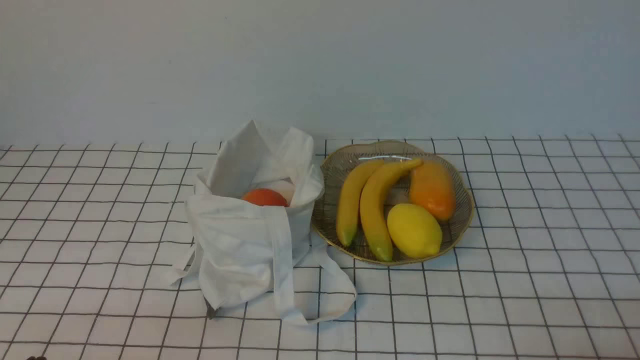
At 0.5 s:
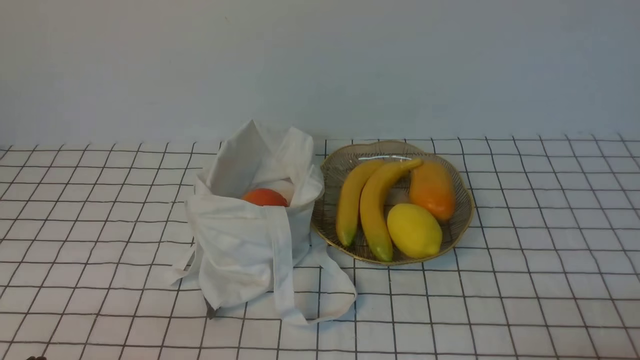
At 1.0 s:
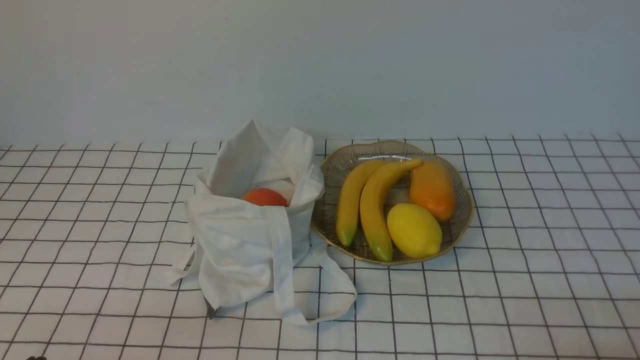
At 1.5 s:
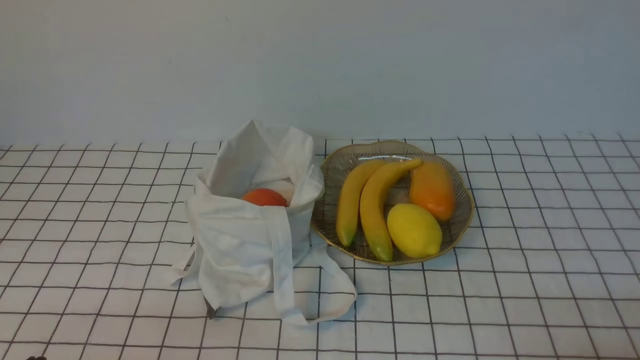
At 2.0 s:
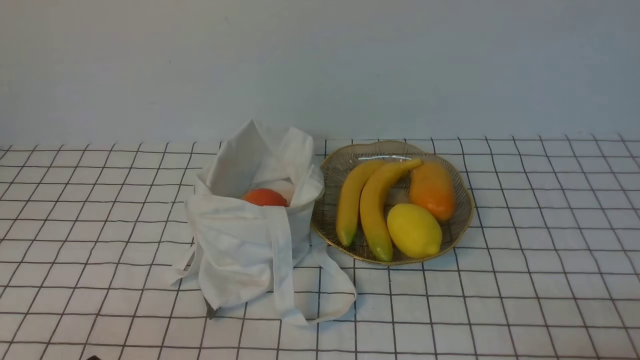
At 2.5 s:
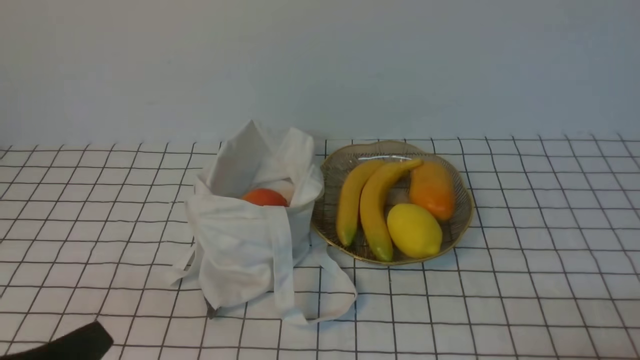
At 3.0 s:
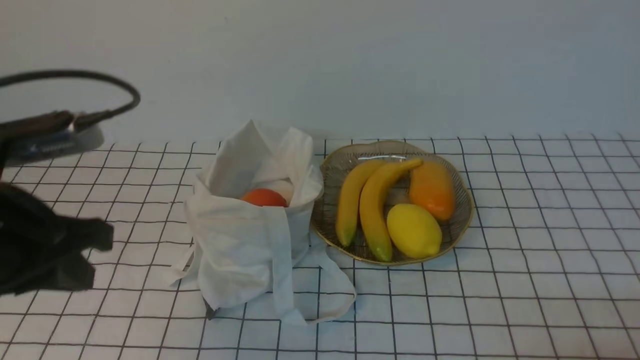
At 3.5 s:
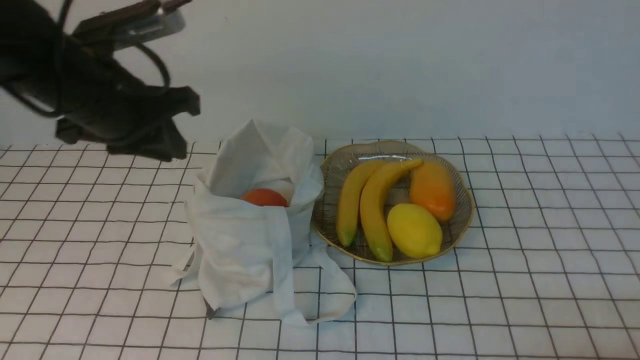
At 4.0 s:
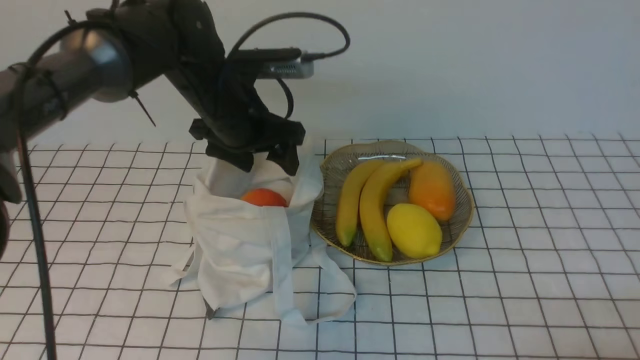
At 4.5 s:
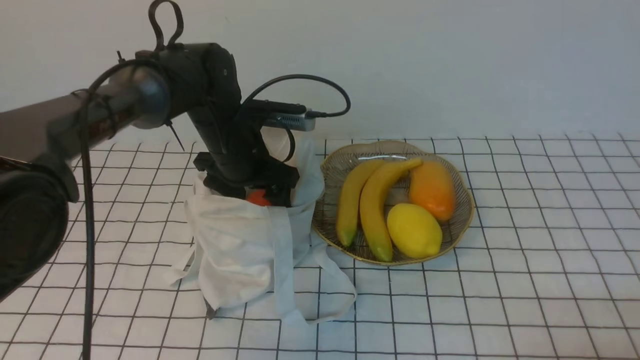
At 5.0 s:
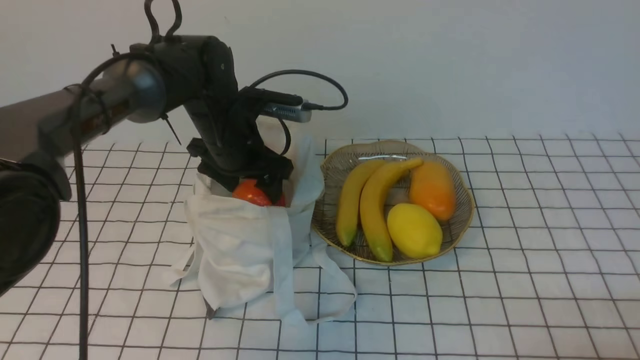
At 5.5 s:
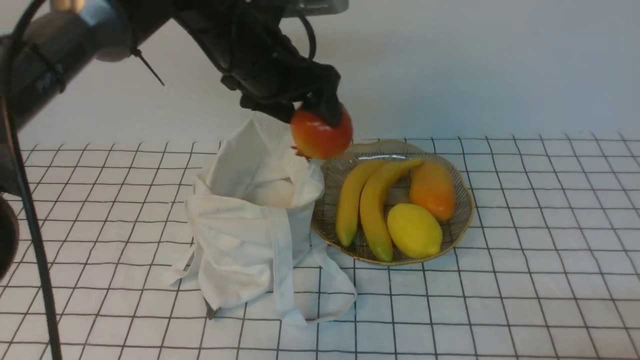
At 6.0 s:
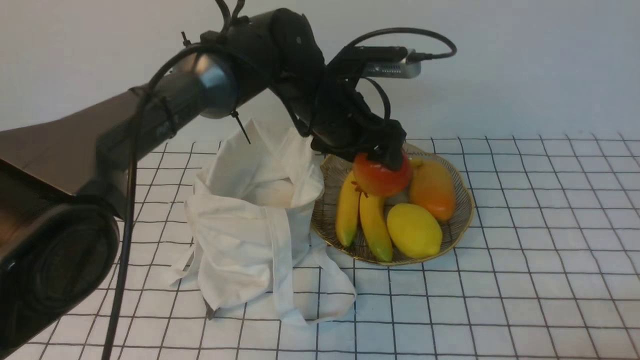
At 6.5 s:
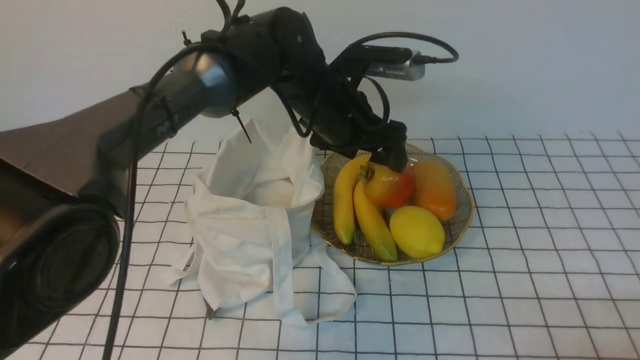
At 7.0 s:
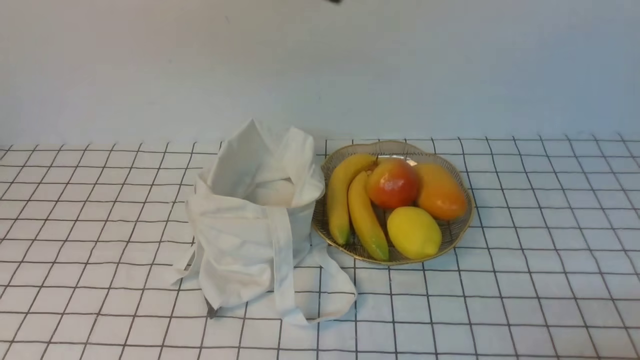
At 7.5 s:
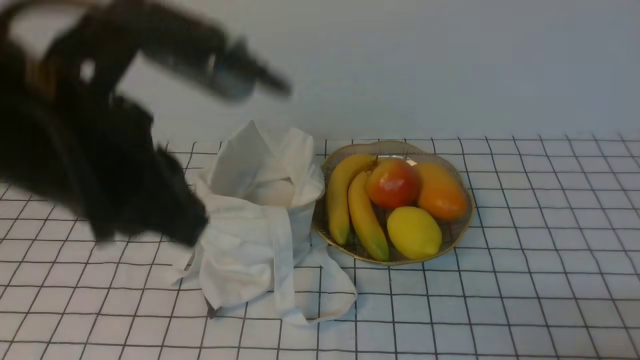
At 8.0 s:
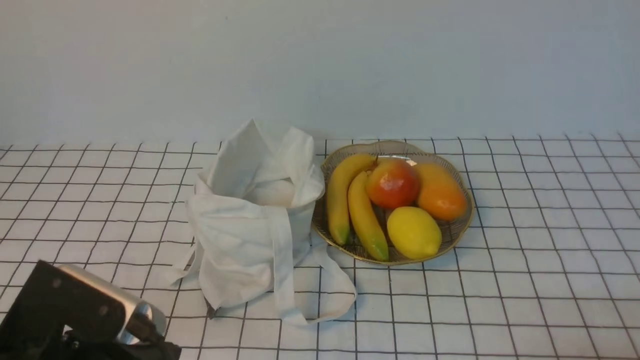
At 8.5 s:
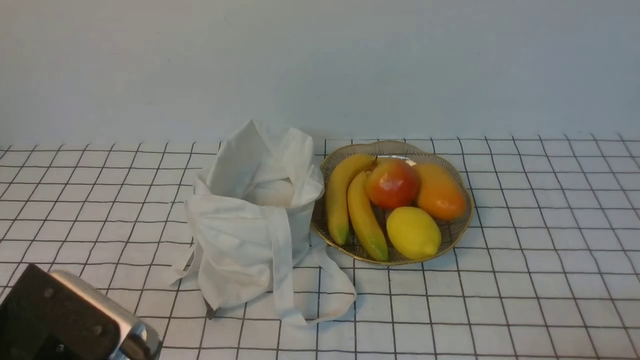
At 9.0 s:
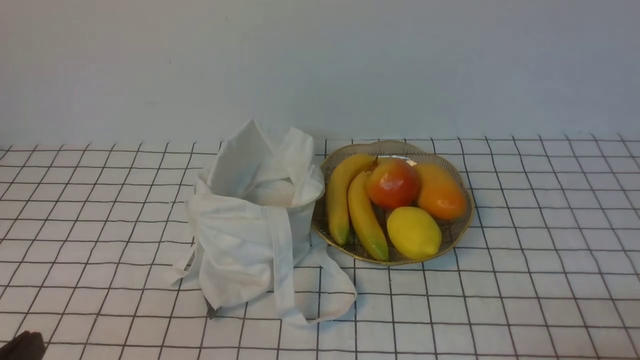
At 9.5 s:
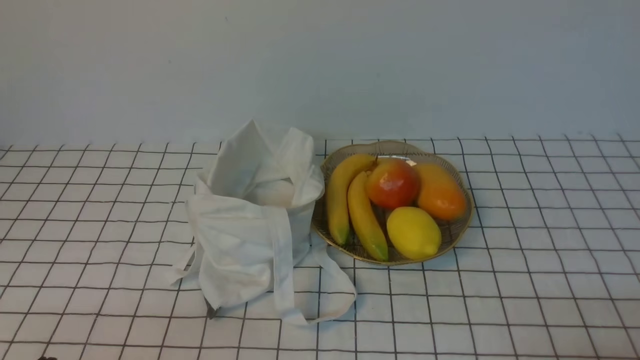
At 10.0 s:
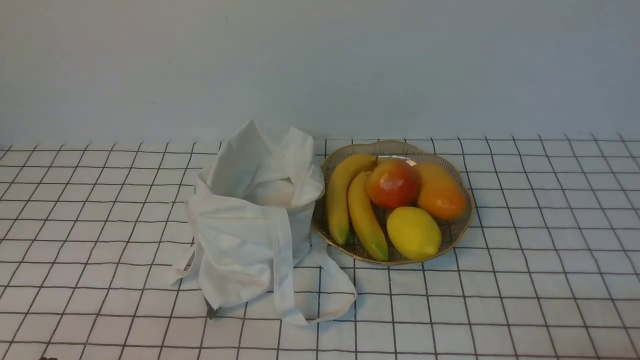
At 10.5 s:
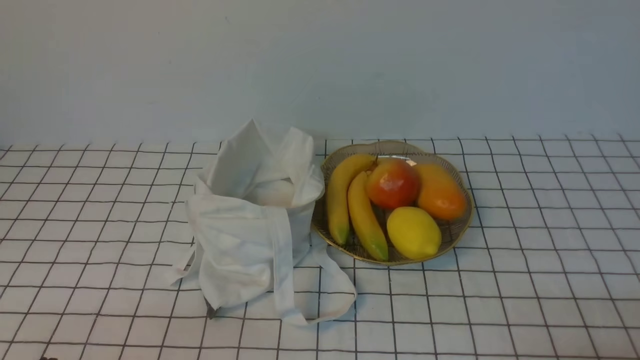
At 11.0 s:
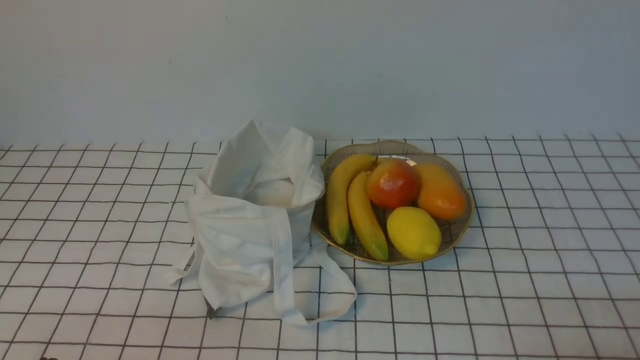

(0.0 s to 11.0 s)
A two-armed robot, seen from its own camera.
Step, 0.0 s - 4.5 s: use the left arm to grab a pomegranate from the bag.
Step, 5.0 s - 6.0 s: use the left arm to put the pomegranate into the empty plate on the right.
2.0 s - 3.5 s: The left gripper heads forward and upward, covering roughly 30 cm.
3.5 s - 5.5 s: The left gripper shifts roughly 15 cm forward and to the right, and opens up.
5.5 s - 7.5 s: The left gripper heads backward and upward, covering approximately 25 cm, and closes.
7.5 s - 9.0 s: The left gripper is displaced downward, backward and to the left by some 30 cm.

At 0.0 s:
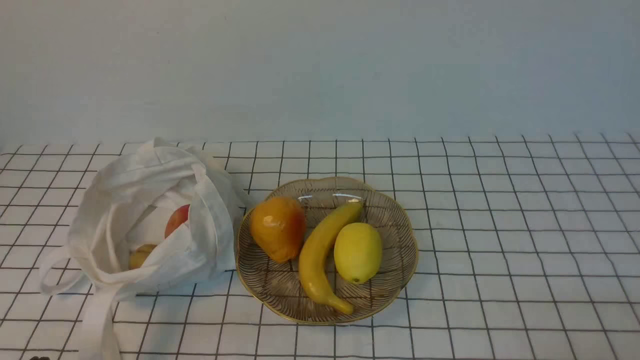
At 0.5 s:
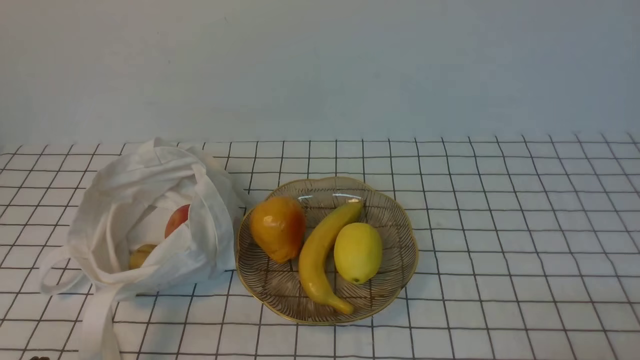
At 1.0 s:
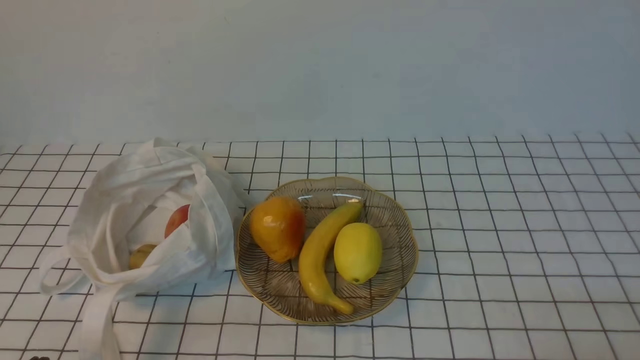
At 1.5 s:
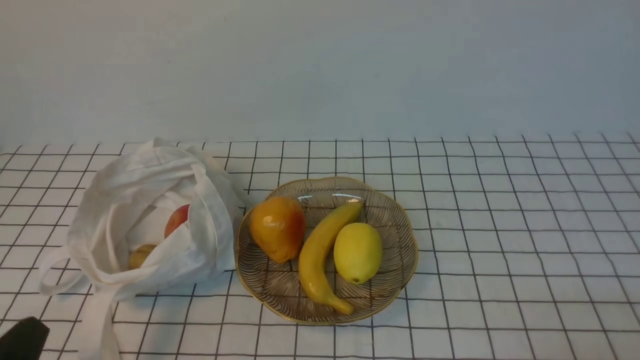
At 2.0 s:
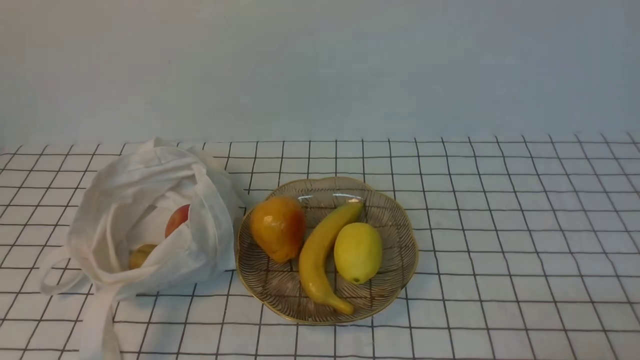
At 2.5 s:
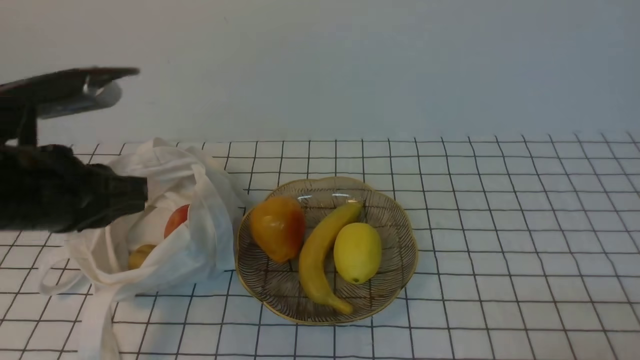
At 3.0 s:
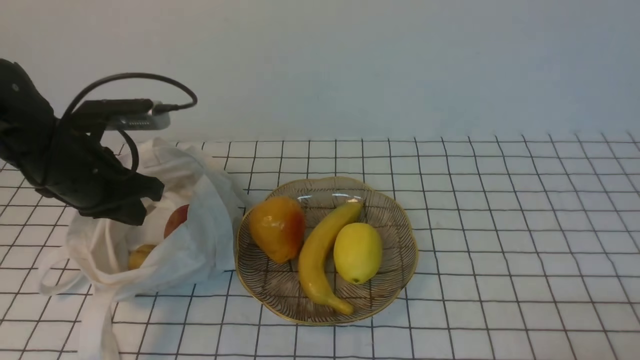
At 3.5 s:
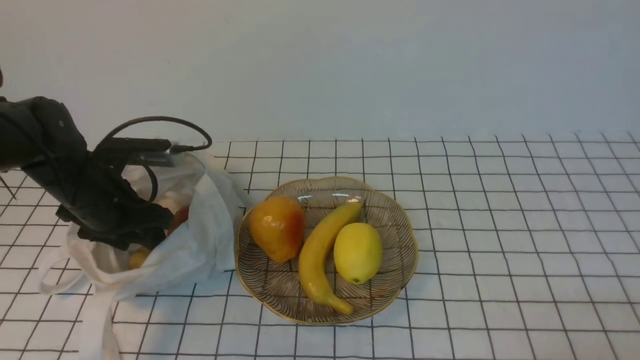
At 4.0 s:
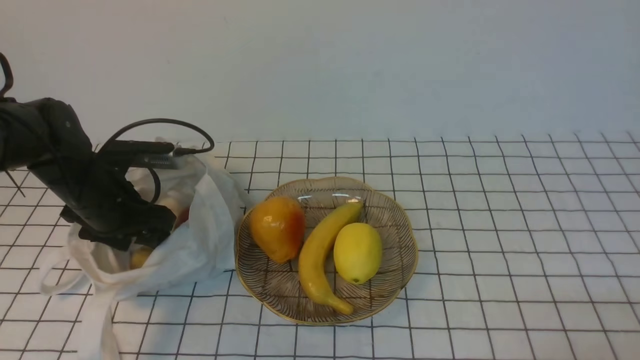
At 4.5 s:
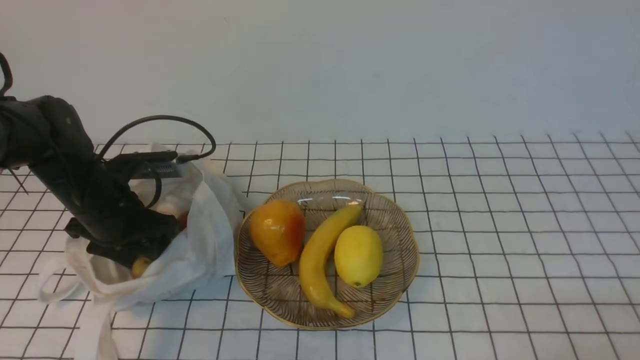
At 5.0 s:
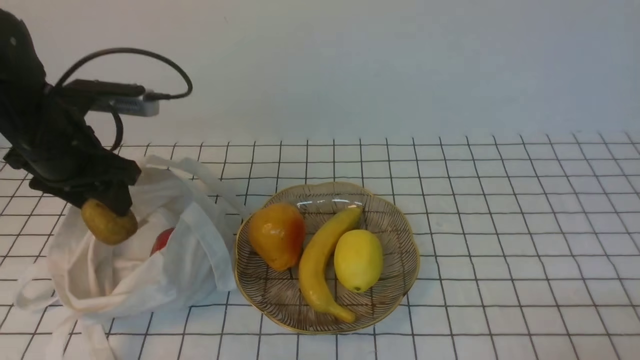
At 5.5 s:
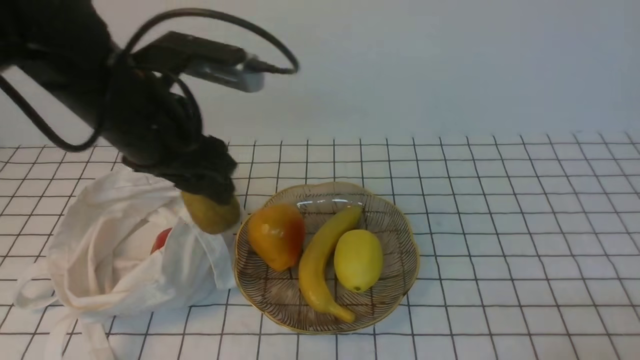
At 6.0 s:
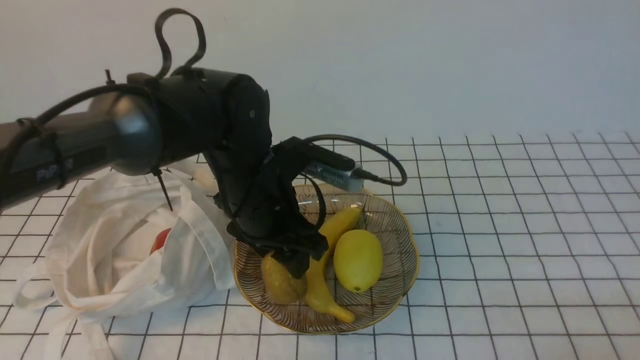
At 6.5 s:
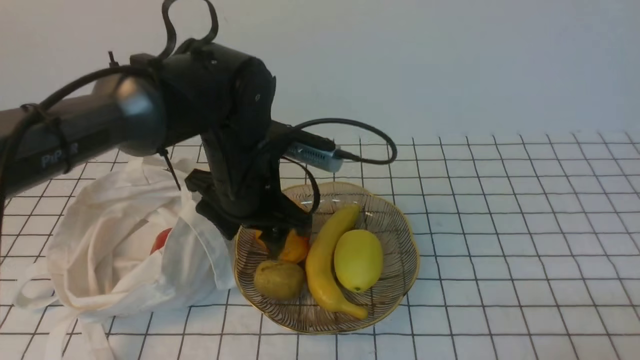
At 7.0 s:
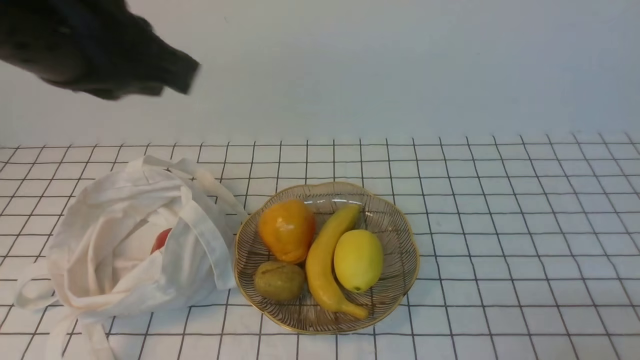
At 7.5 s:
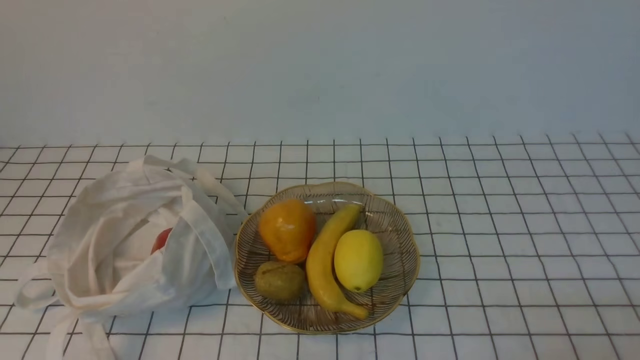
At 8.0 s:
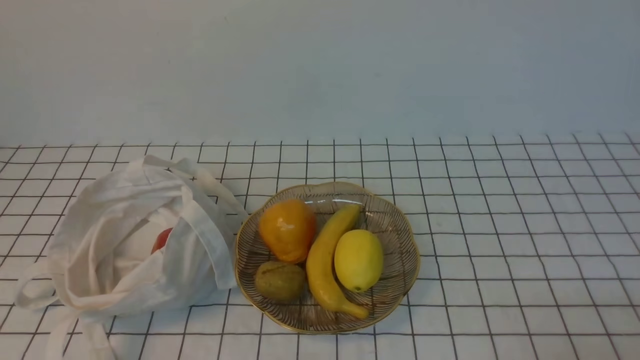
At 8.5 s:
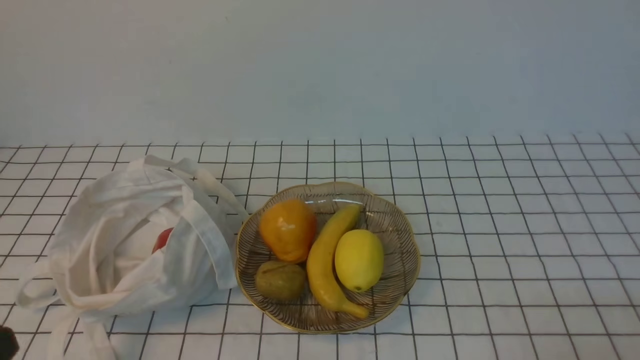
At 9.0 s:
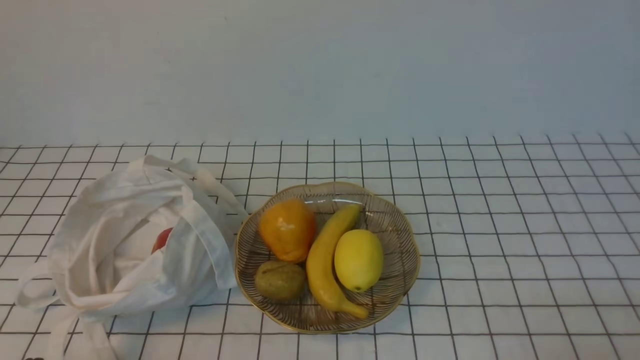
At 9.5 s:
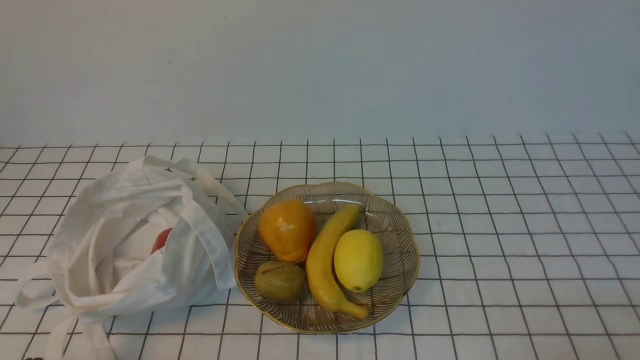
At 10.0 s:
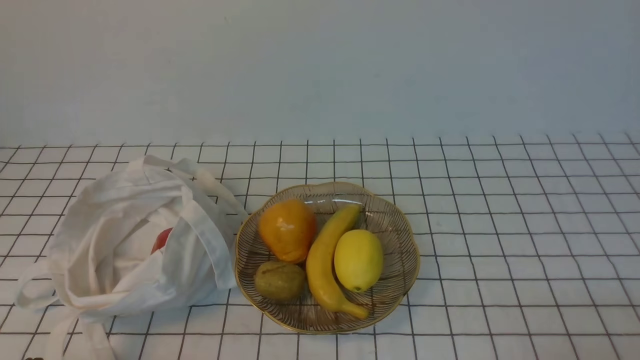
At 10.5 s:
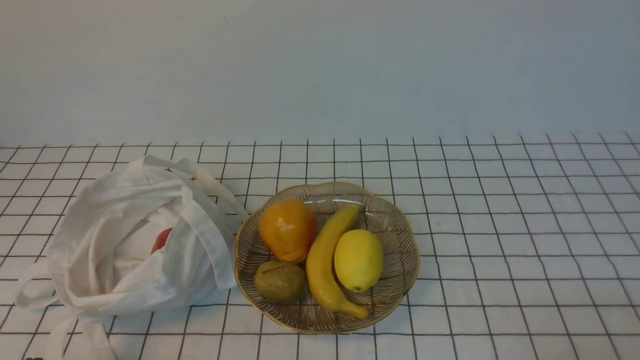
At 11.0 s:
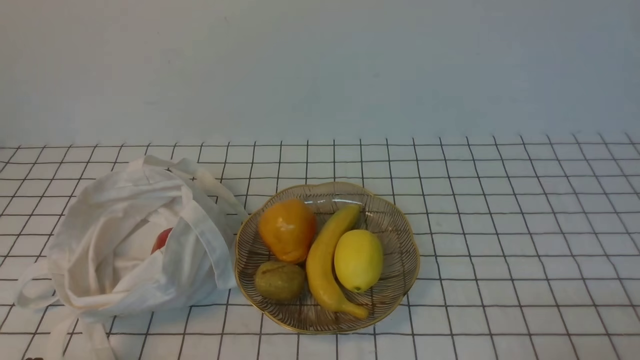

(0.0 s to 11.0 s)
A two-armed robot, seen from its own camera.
Step, 0.0 s - 4.5 s: use the left arm to grab a kiwi from the bag.
Step, 5.0 s - 6.0 s: use the left arm to put the kiwi into the empty plate on the right.
2.0 s - 3.5 s: The left gripper moves forward, some 30 cm, and opens its fingers.
3.5 s - 5.5 s: The left gripper shifts some 20 cm upward and to the right.
5.5 s - 7.5 s: The left gripper moves backward, approximately 25 cm, and closes.
9.0 s - 11.0 s: Both grippers stay about where they are.
